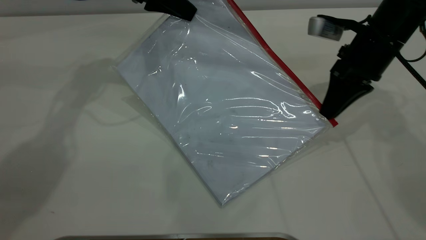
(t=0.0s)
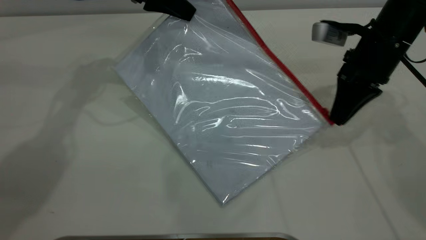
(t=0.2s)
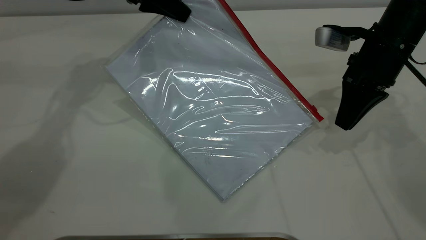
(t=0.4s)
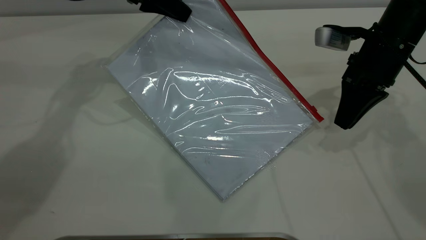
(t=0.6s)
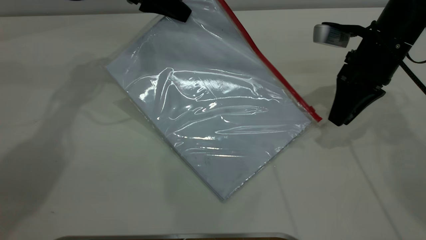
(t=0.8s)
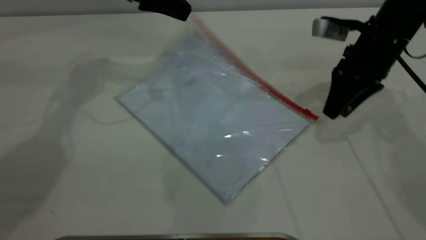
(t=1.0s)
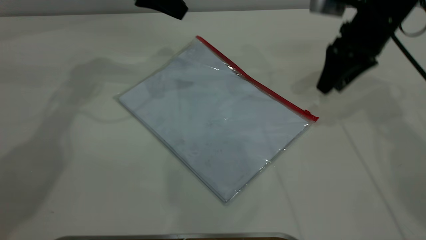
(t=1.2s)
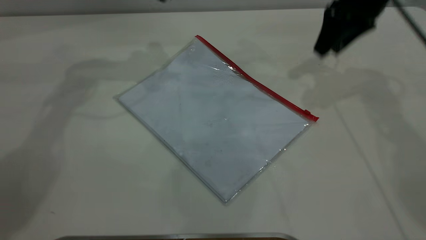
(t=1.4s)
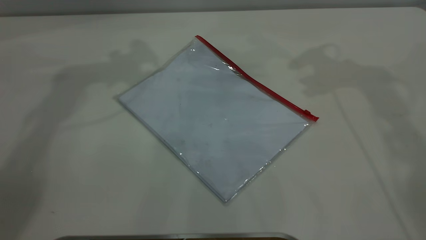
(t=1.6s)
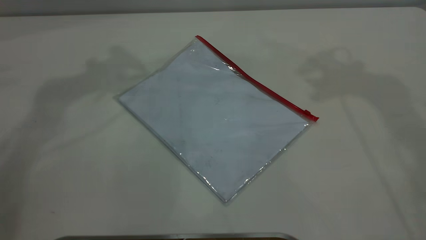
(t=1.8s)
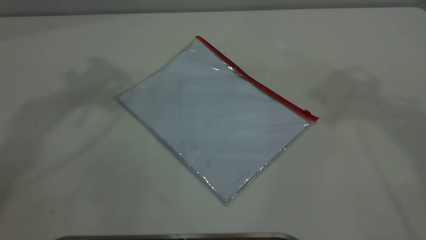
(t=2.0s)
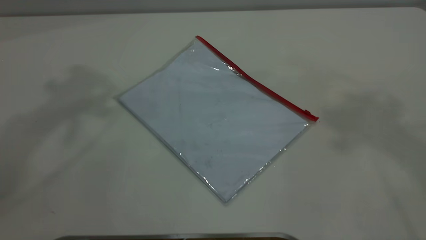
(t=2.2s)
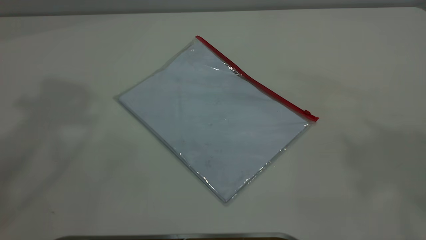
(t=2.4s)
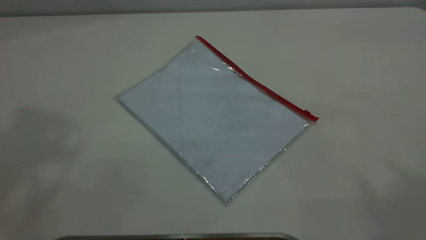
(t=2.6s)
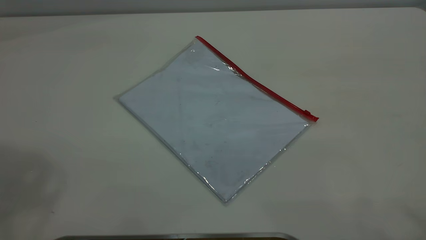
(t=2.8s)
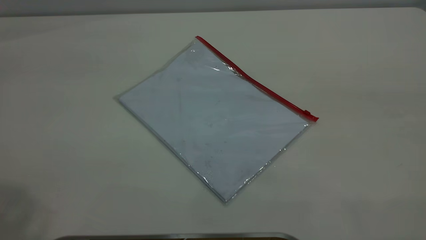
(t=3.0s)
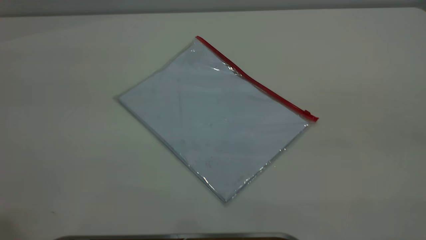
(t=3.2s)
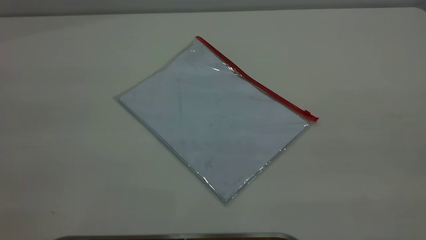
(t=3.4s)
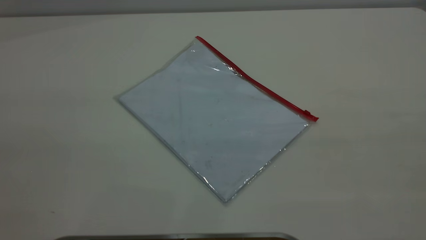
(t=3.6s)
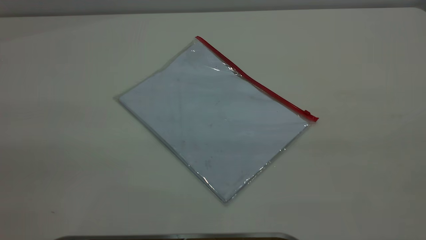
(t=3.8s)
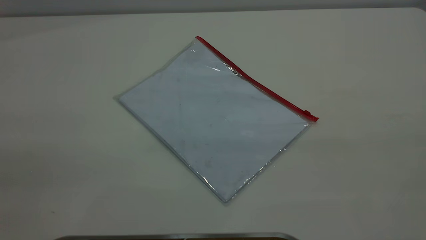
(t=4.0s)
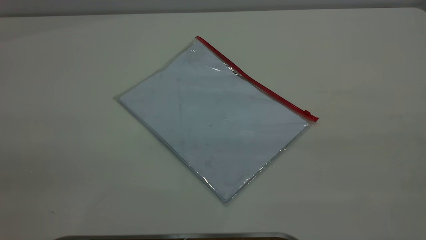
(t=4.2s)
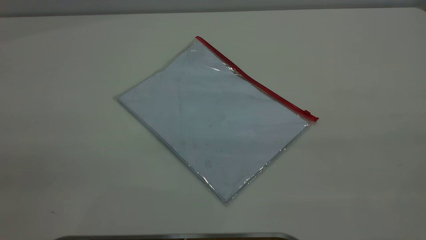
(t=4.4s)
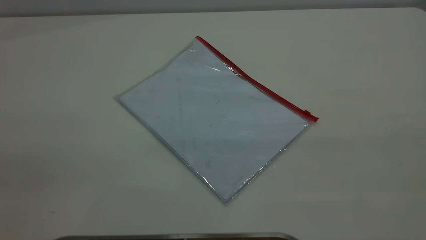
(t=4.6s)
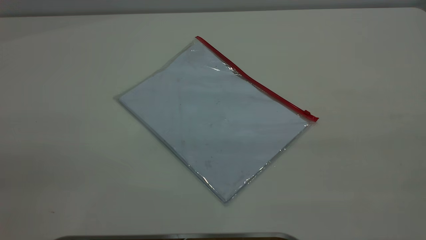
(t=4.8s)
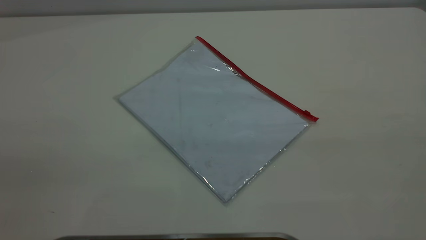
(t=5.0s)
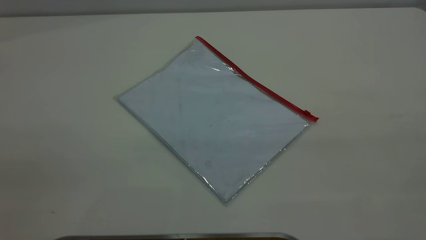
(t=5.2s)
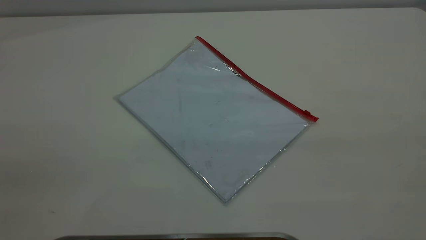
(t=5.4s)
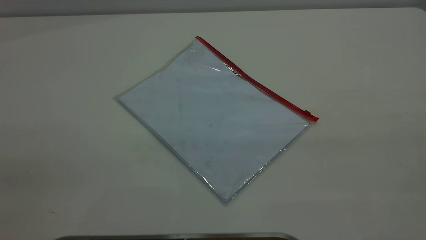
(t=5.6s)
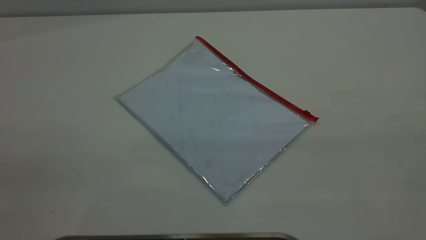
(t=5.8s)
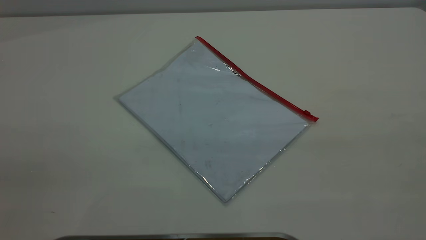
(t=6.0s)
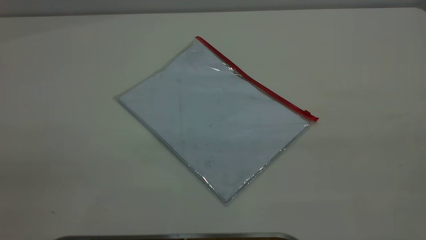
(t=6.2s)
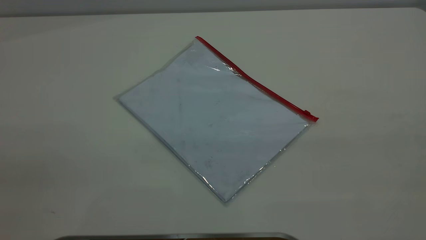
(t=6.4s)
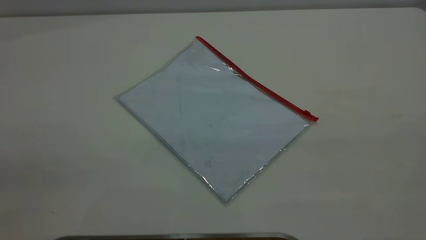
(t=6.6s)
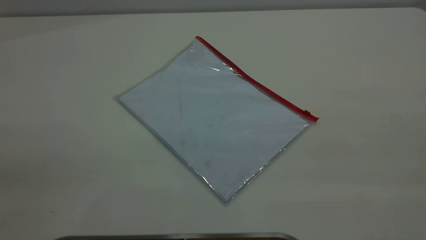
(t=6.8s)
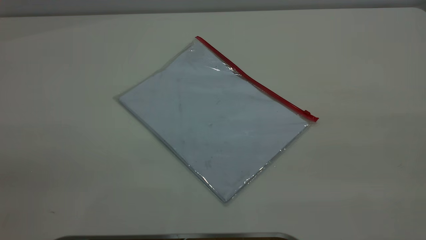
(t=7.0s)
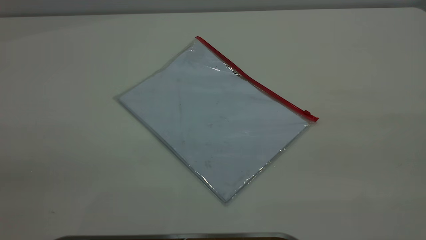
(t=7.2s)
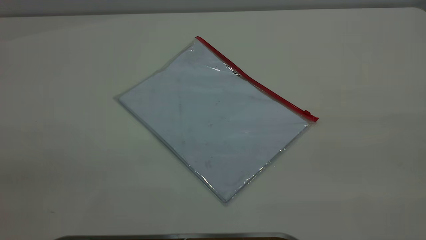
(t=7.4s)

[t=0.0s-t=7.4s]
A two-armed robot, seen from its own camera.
Step, t=0.8s to t=1.2s: Place the transparent plastic bag.
t=0.0s to t=1.4s: The left gripper moves upward, some 5 cm, and opens its fingers; the right gripper shifts roughly 10 cm upward and forward, and opens its fingers.
t=1.4s to t=3.0s: The right gripper heads backward and upward, covering about 50 cm.

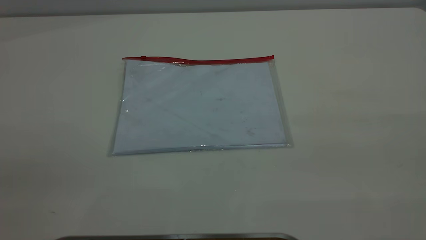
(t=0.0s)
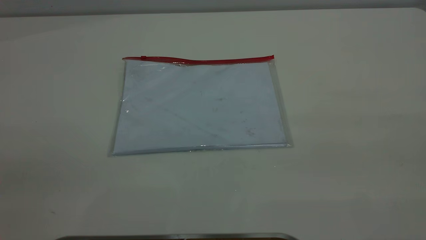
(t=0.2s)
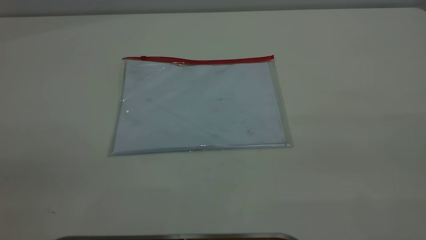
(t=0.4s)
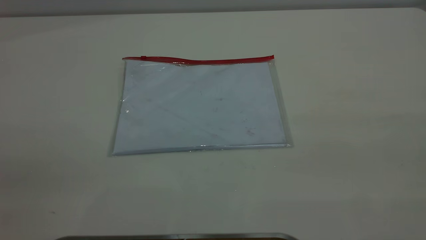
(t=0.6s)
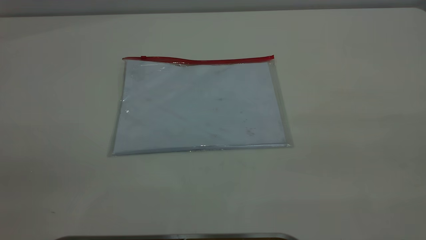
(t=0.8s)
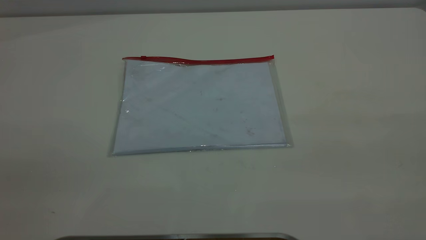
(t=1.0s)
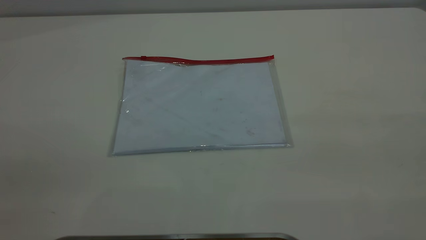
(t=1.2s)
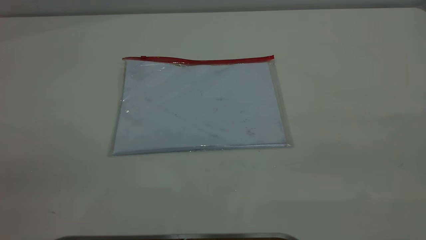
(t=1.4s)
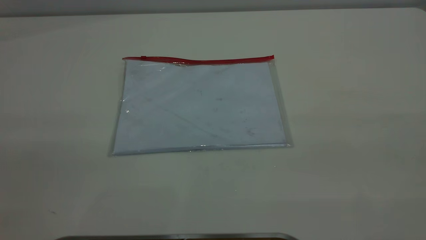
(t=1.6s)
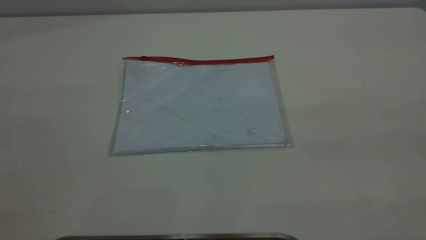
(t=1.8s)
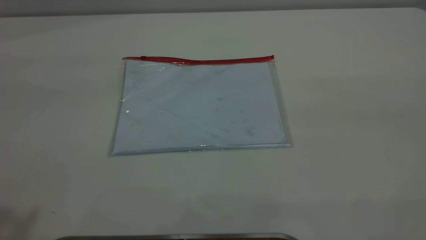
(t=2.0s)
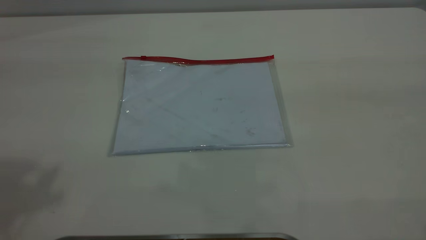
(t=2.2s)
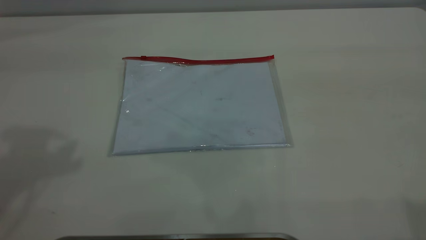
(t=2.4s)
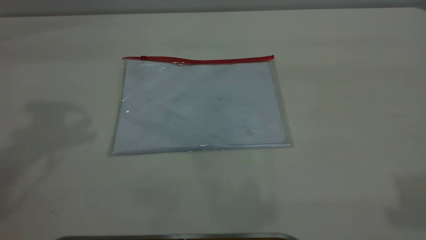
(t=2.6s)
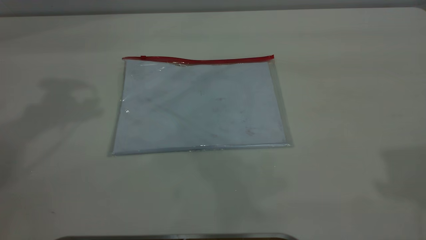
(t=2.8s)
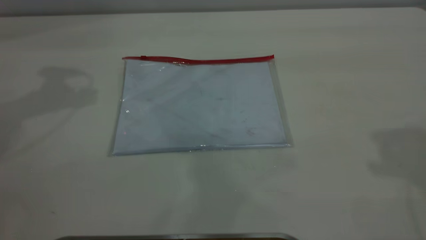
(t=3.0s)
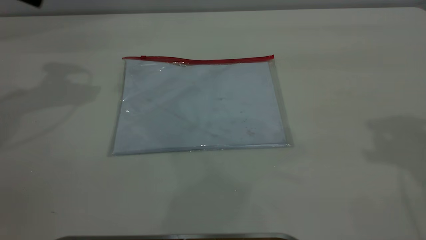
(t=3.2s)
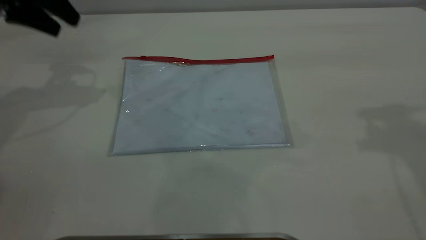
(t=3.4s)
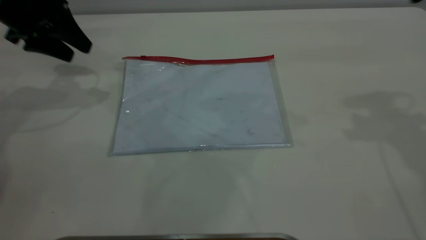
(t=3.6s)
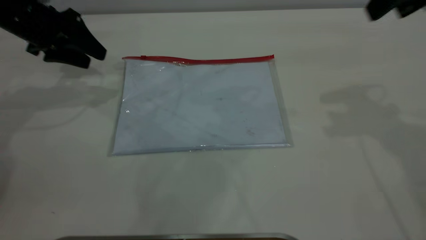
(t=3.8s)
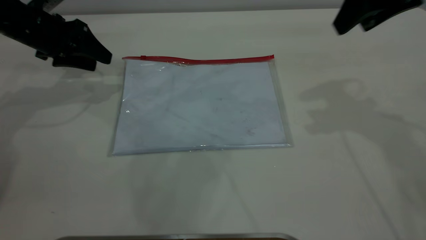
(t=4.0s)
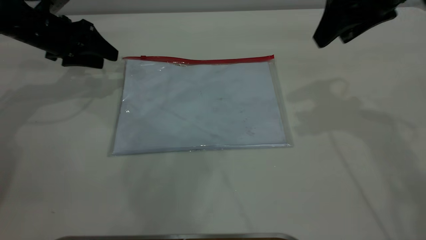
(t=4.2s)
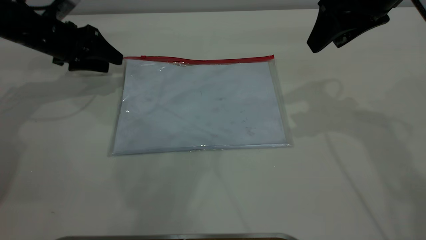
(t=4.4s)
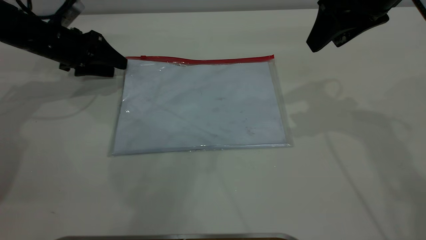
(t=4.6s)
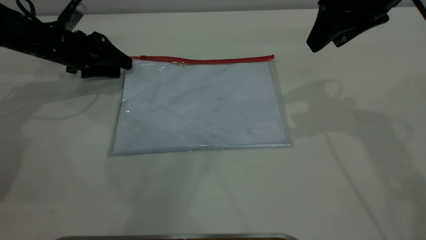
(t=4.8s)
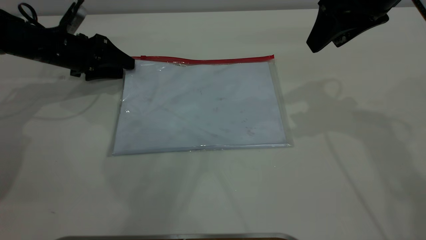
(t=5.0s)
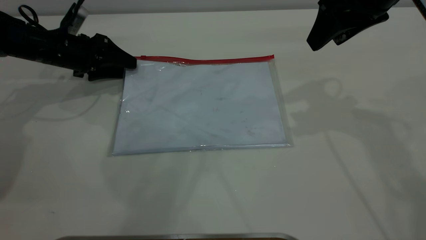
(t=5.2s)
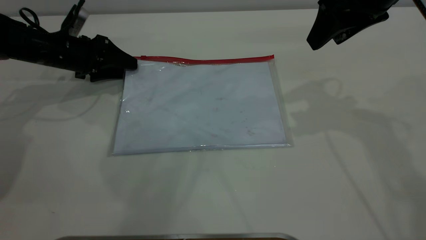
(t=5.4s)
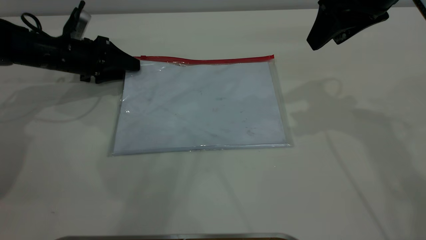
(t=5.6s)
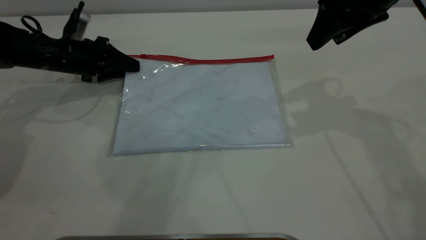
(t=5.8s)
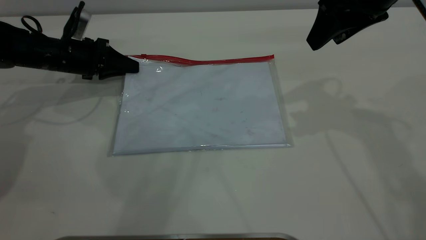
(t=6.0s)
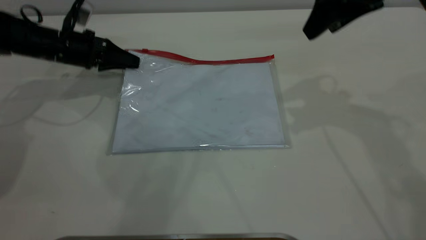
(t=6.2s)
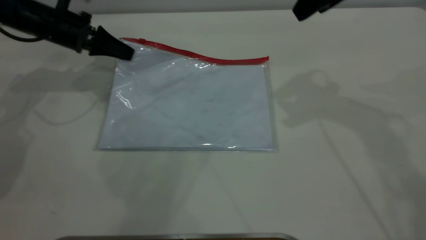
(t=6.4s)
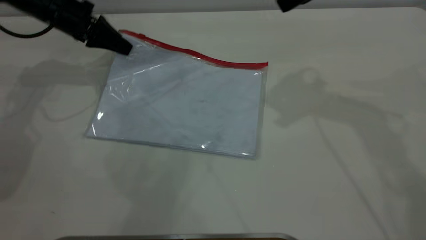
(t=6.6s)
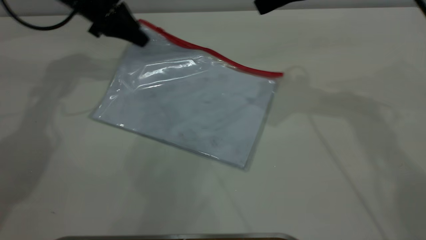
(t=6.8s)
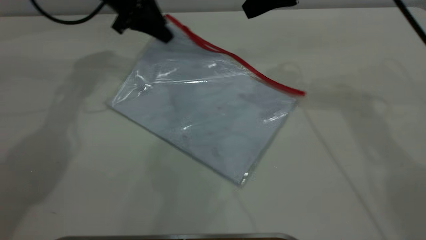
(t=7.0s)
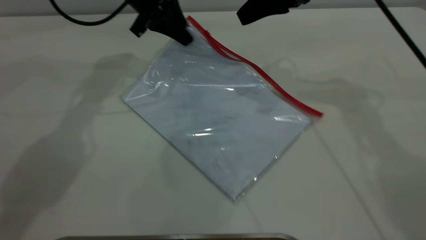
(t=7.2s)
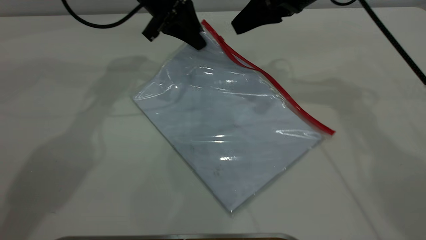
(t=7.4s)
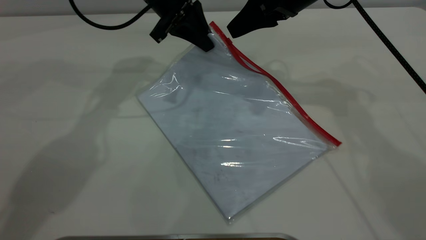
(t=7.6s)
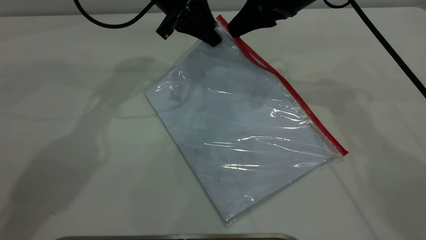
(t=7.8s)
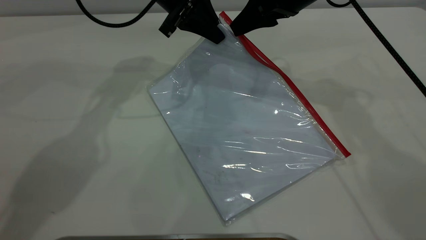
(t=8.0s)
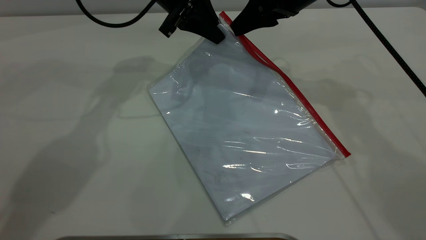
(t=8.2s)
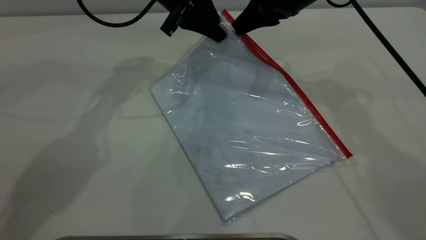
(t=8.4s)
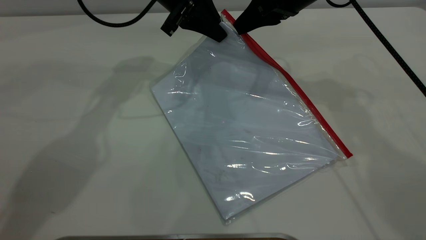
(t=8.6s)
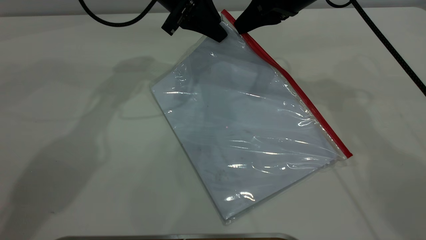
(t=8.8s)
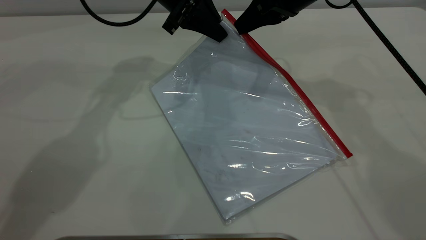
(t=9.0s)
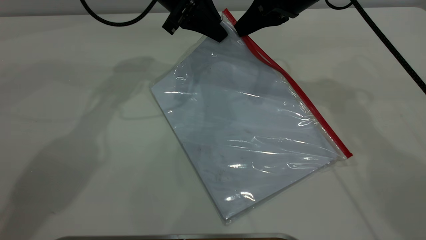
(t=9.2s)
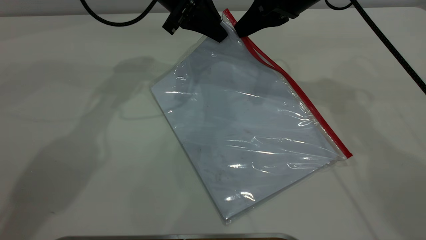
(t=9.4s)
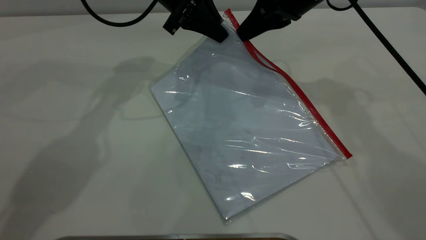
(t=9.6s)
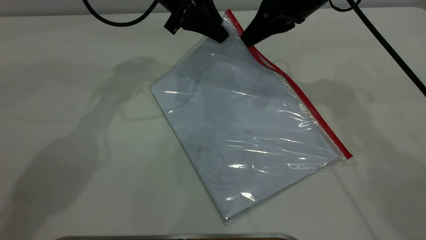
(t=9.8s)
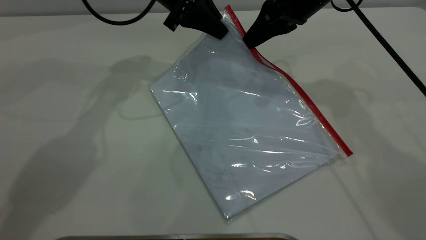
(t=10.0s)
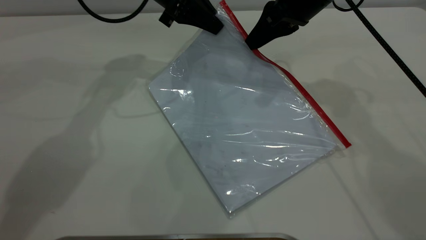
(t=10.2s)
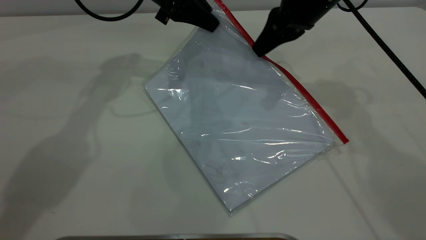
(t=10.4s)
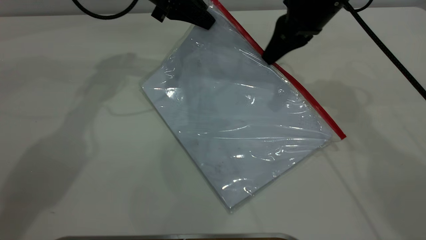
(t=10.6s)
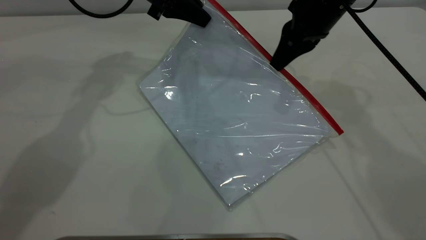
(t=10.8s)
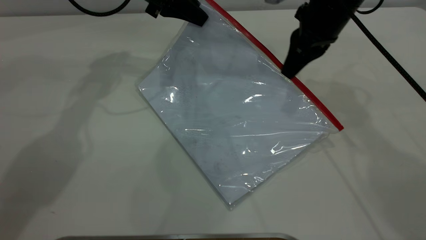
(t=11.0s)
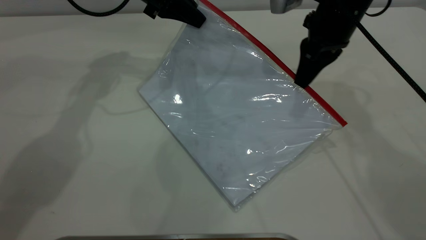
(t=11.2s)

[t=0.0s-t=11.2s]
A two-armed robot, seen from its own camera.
Step, t=0.0s to t=6.2s: Pick up the transparent plastic bag with the left gripper.
t=3.2s to t=4.8s: The left gripper moves downward, roughly 20 cm. Meanwhile the right gripper heads downward, forward and to the left, covering roughly 15 cm.
t=4.8s to t=6.4s: The left gripper closes its fingers.
t=6.4s to t=8.0s: The left gripper moves to the right, some 20 cm; the right gripper is displaced downward, to the left and forward by approximately 10 cm.
t=8.0s to t=9.6s: The right gripper closes its fingers.
t=9.6s to t=11.2s: The left gripper shifts by approximately 5 cm.
